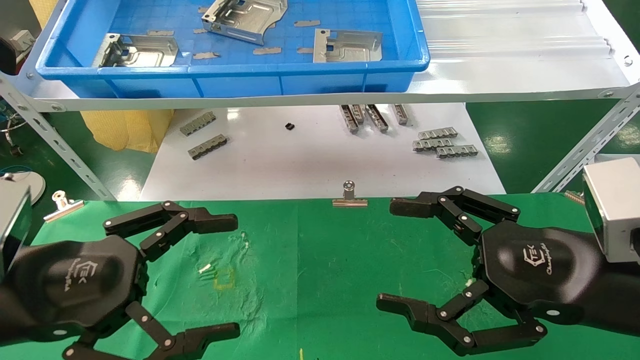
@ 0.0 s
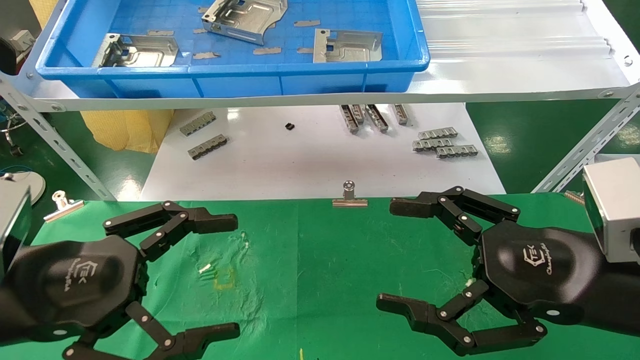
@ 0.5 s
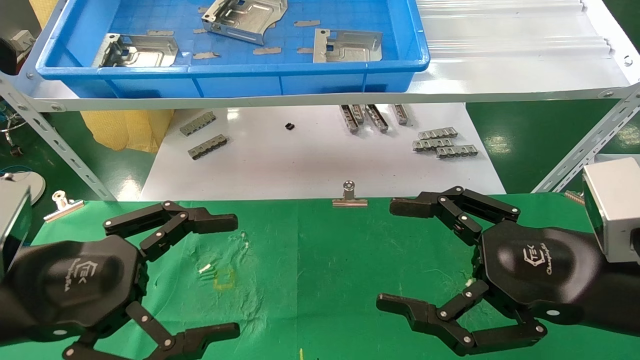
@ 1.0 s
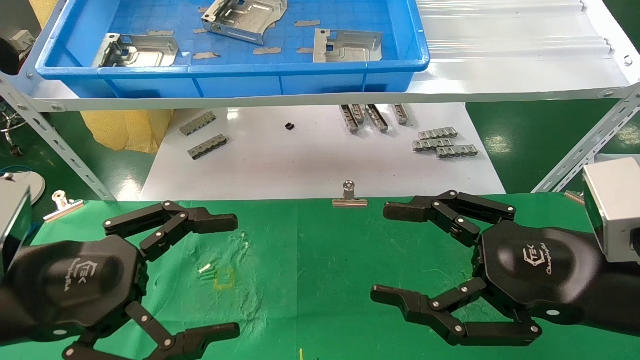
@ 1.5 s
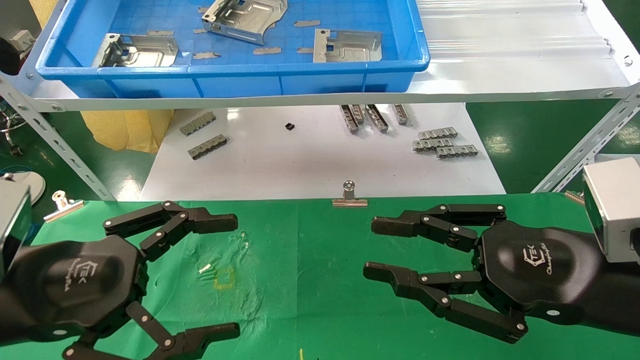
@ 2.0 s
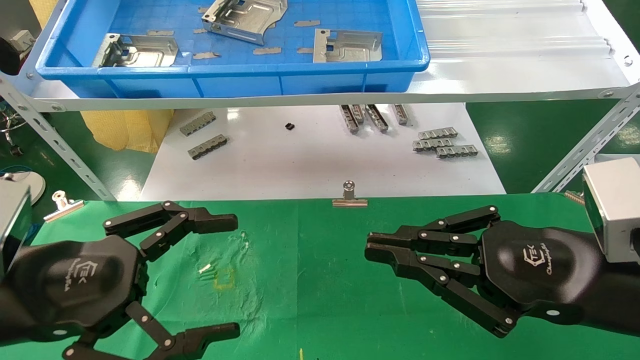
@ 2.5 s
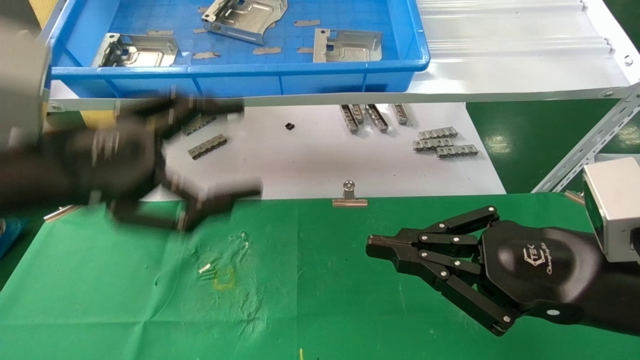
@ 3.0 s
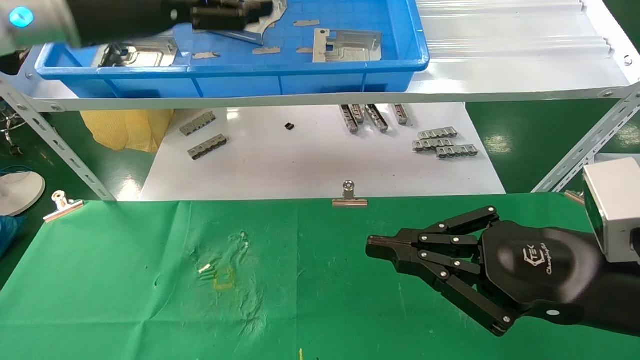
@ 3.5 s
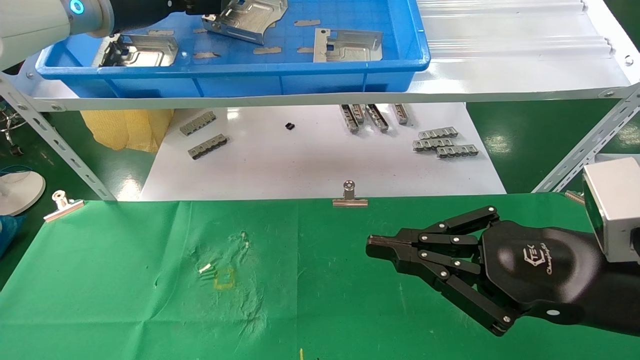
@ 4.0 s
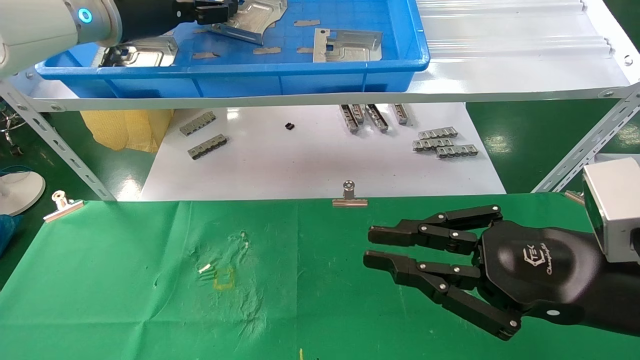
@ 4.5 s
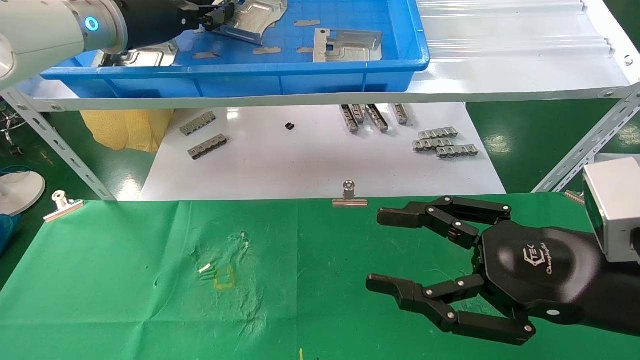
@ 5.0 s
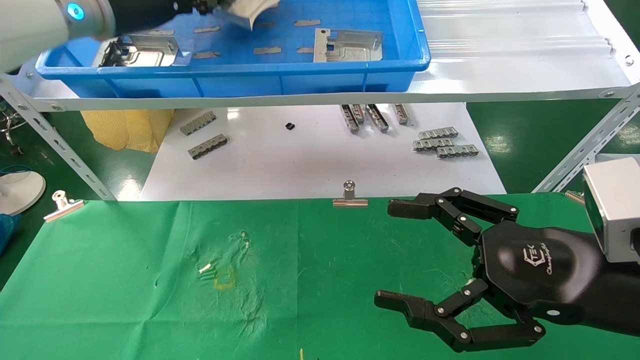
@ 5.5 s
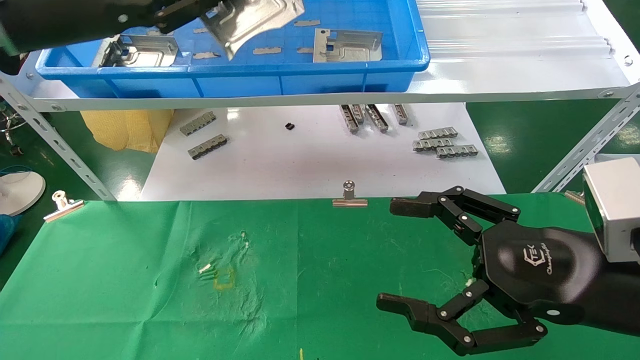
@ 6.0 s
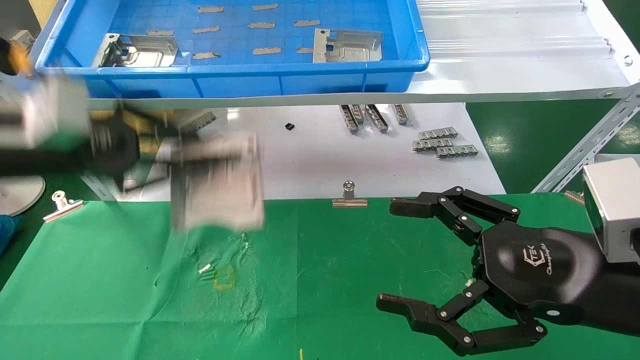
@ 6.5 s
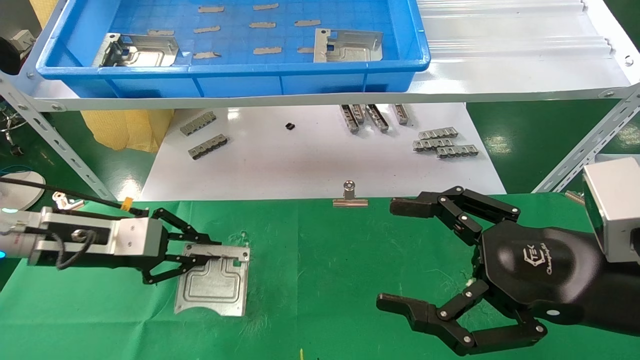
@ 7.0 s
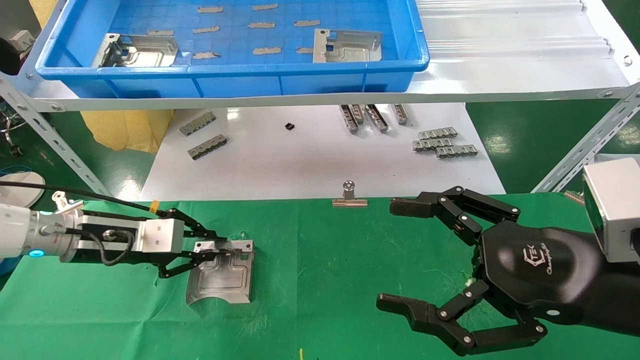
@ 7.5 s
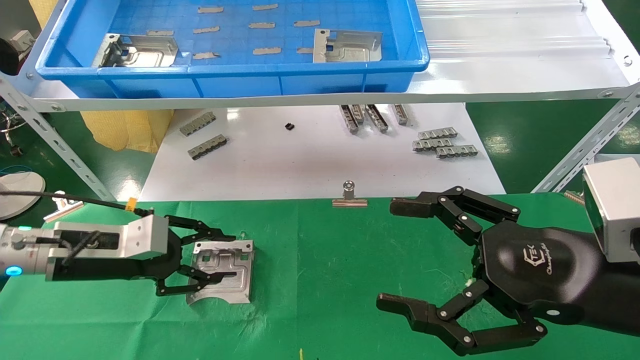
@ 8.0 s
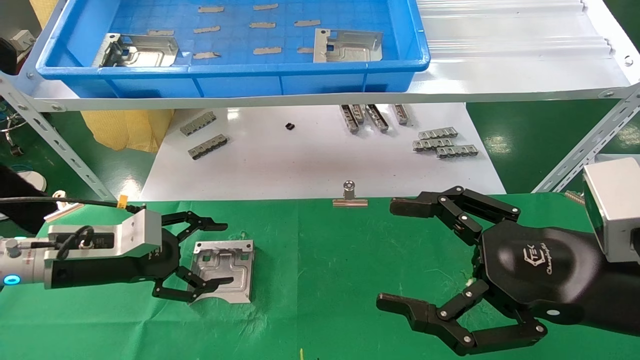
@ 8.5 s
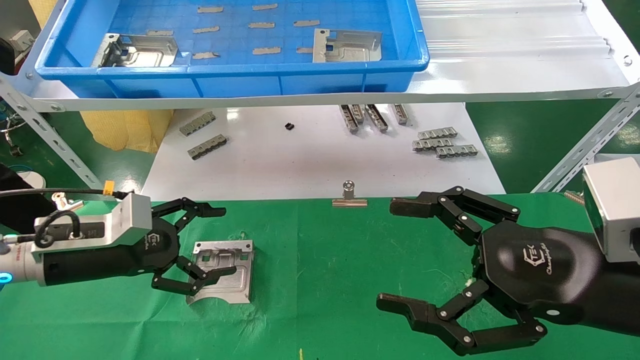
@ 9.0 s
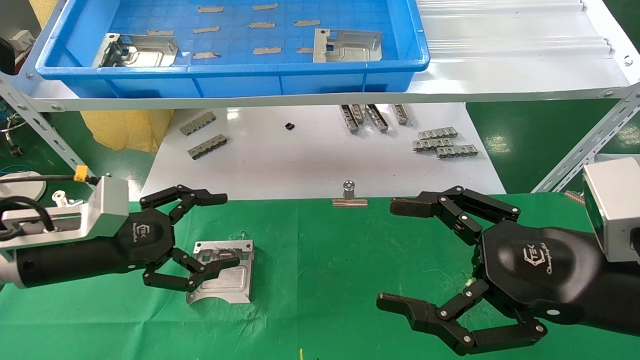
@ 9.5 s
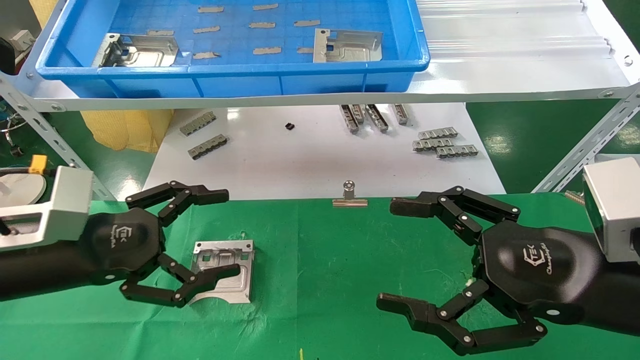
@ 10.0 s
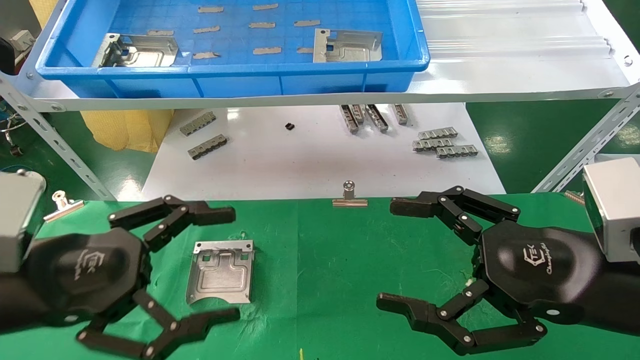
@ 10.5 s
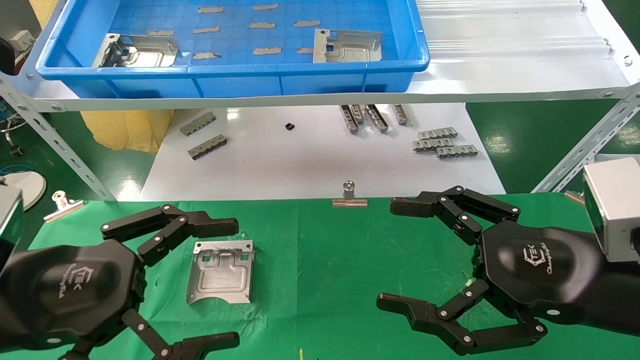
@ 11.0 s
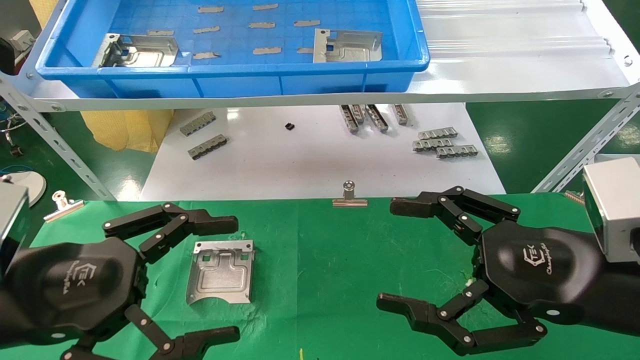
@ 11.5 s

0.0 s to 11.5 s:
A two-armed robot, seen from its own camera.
Task of the whole recording: use the mechanical arm to pick up the parts and place them on the table.
Step, 3.0 to 5.0 s: Pick up the hard drive bracket from the feeding area.
Step, 5.5 to 8.0 s: Place the hard drive bracket into the box.
0.0 to 2.0 s: The right gripper closes.
2.0 to 4.0 s: The right gripper closes, while the left gripper is displaced forward and upward by some 35 cm.
4.0 to 6.0 s: The right gripper opens. Meanwhile the left gripper travels backward by roughly 10 cm, and closes its fingers.
6.0 to 7.5 s: The left gripper heads downward, covering roughly 25 cm.
7.5 to 9.5 s: The left gripper shifts about 5 cm backward, and opens up.
9.5 to 11.5 s: The left gripper travels backward by roughly 10 cm.

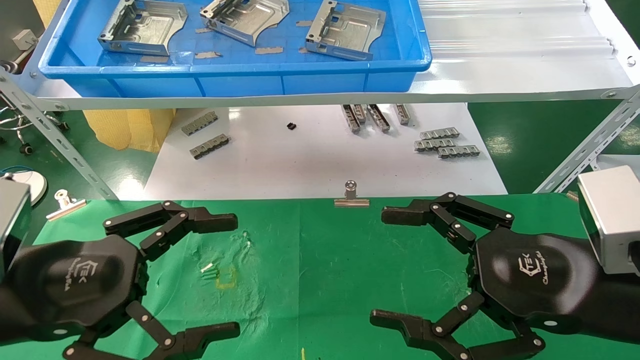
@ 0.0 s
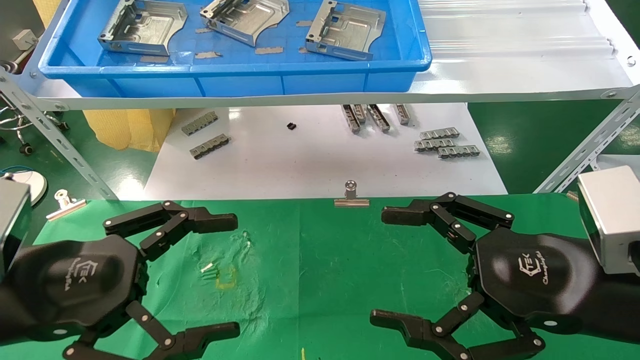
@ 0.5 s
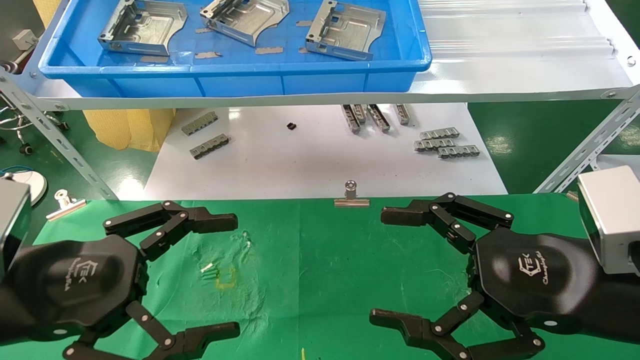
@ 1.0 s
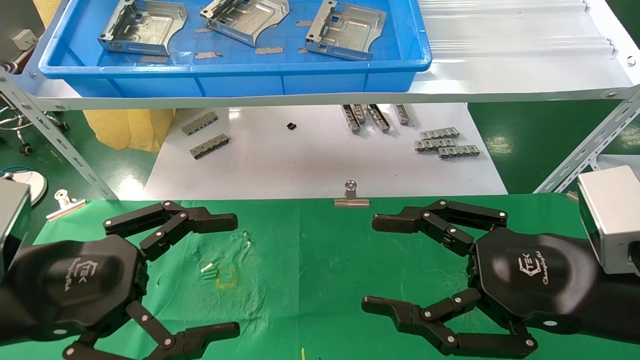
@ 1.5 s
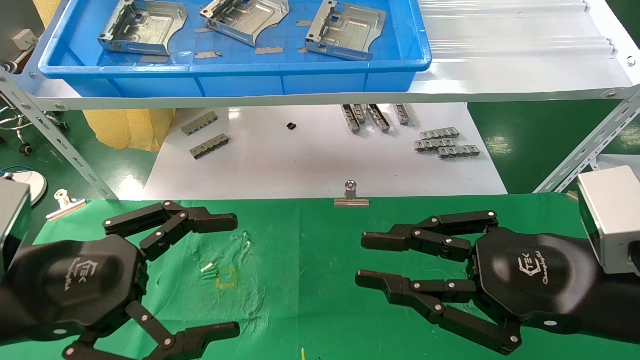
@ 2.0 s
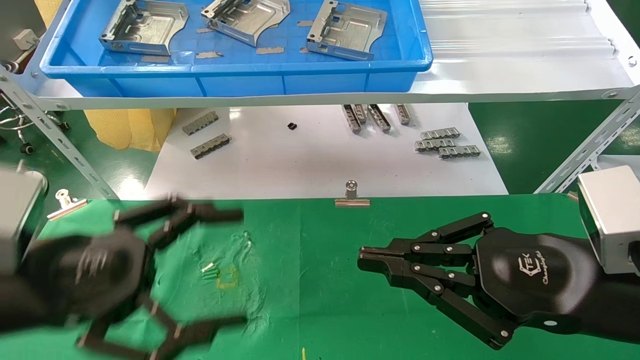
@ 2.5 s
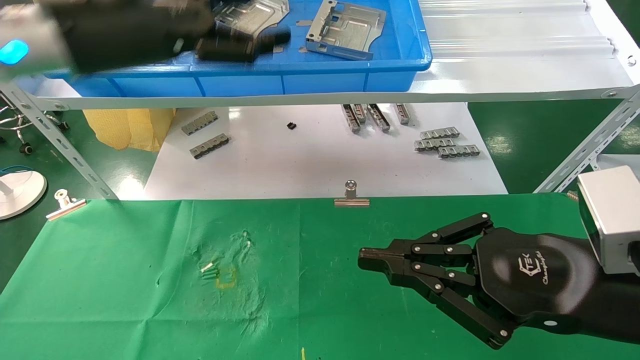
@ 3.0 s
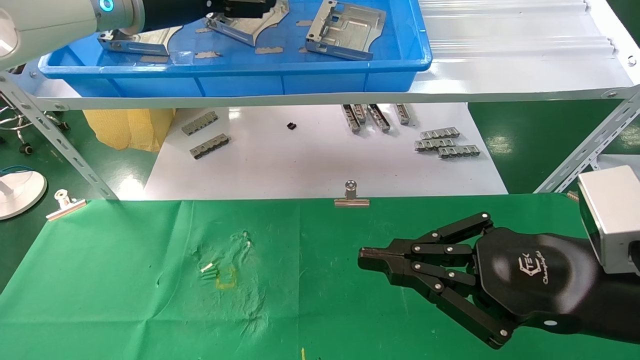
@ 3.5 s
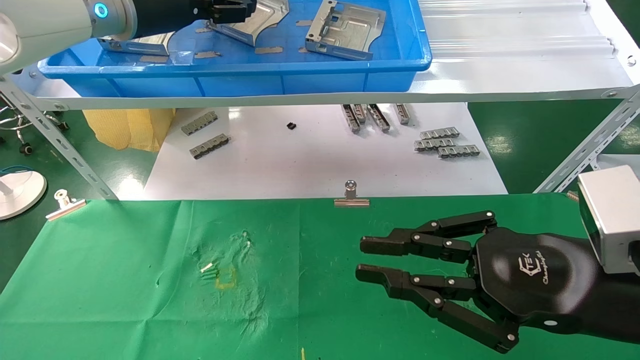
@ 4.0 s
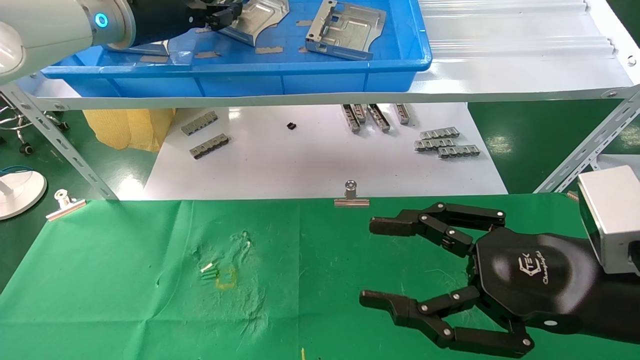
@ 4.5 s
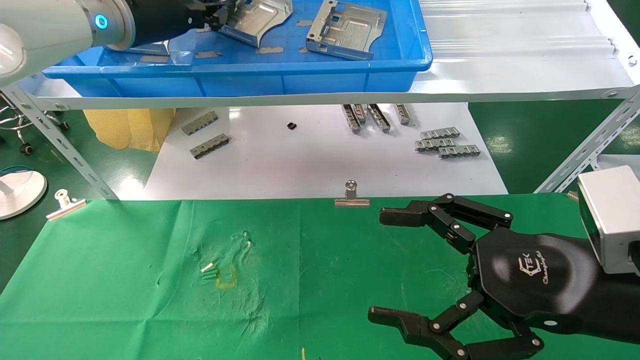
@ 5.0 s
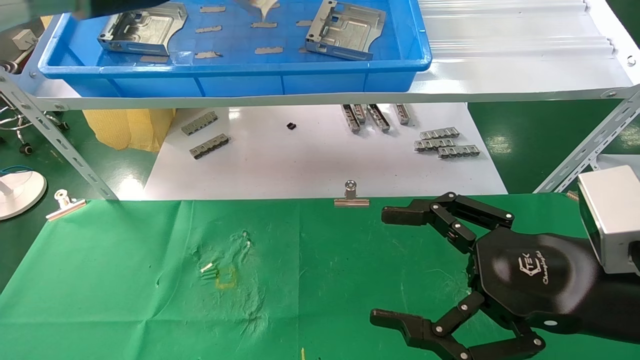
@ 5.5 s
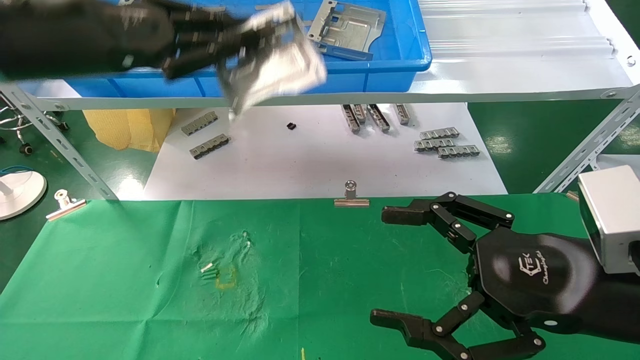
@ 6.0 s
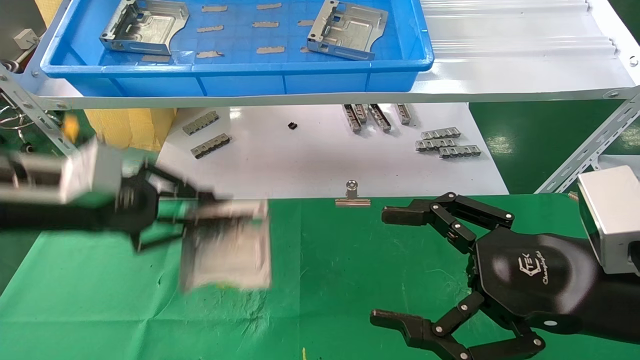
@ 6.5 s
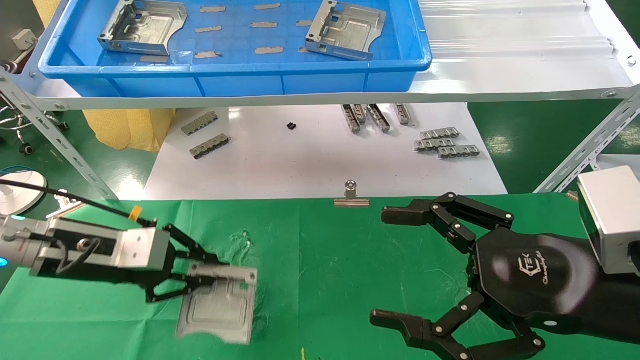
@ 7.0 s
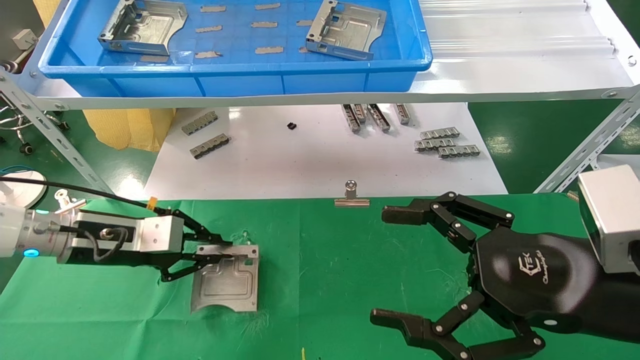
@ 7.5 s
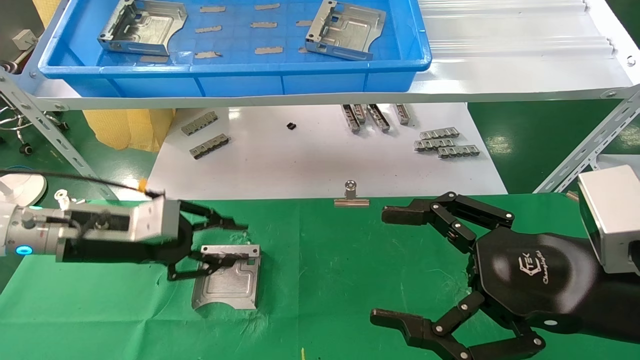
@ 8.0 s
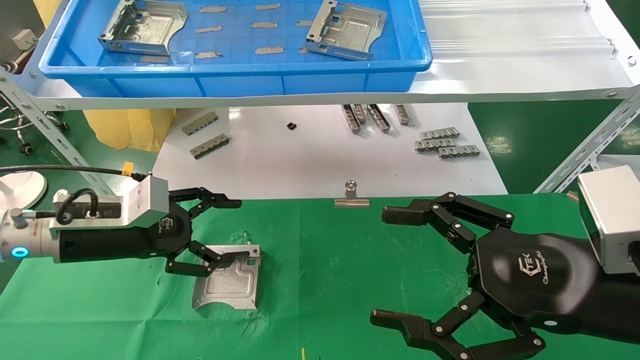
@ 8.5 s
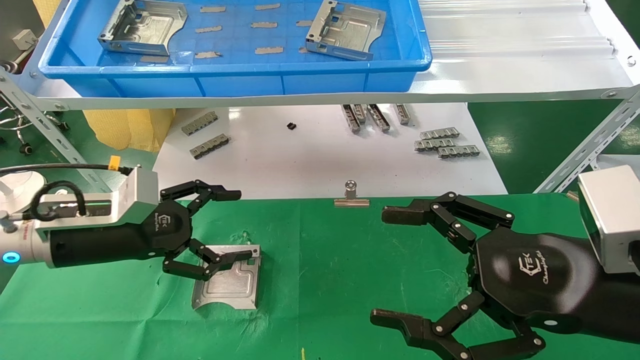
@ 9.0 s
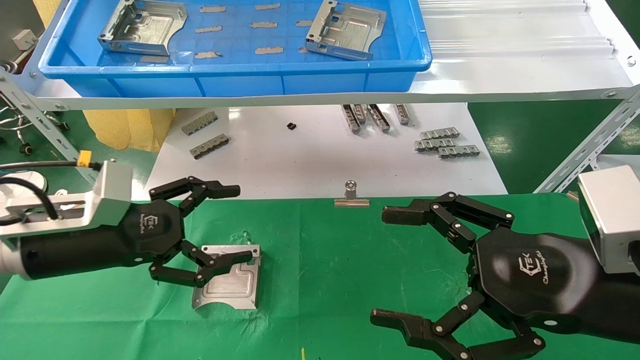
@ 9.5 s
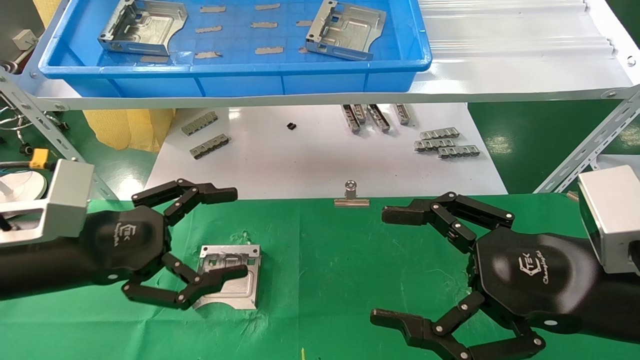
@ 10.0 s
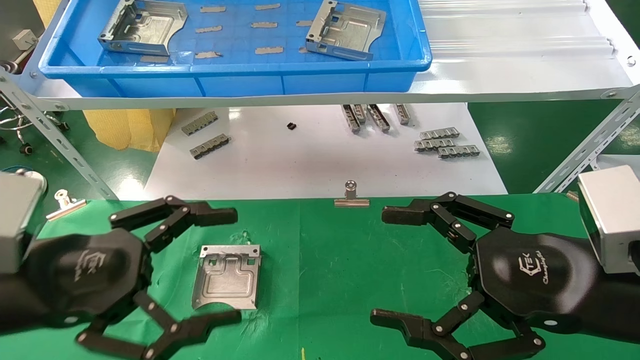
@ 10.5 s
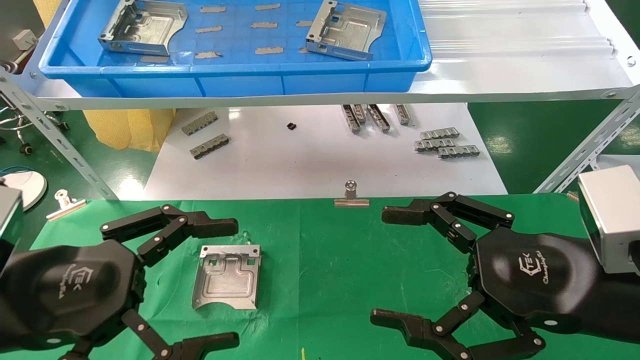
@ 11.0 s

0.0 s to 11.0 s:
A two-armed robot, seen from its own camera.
Task of the whole recording: use the mechanical arm to pick up the parts and place them on the table.
Step, 2.0 to 5.5 s: Pick up the hard drive bracket from the feeding area.
Step, 6.0 to 8.0 s: Place the hard drive bracket into the box.
0.0 to 2.0 s: The right gripper closes up.
2.0 to 3.5 s: The right gripper closes its fingers. Meanwhile the left gripper heads upward and forward, covering approximately 35 cm.
3.5 to 5.5 s: The right gripper opens up, while the left gripper closes its fingers.
5.5 to 7.5 s: The left gripper moves downward, about 30 cm.
7.5 to 9.0 s: The left gripper opens.
9.0 to 11.0 s: The left gripper heads backward, covering some 15 cm.
